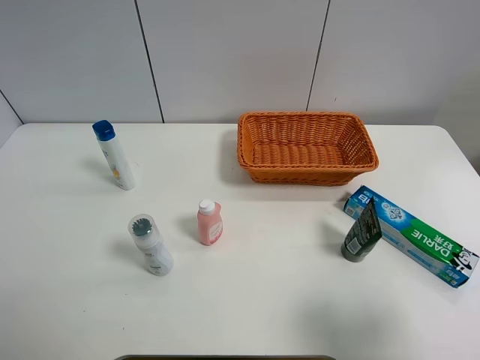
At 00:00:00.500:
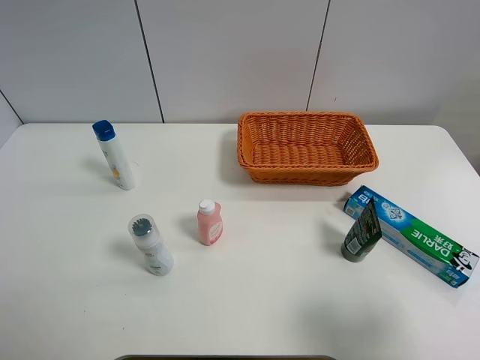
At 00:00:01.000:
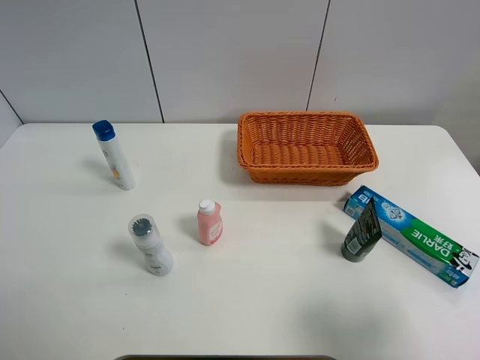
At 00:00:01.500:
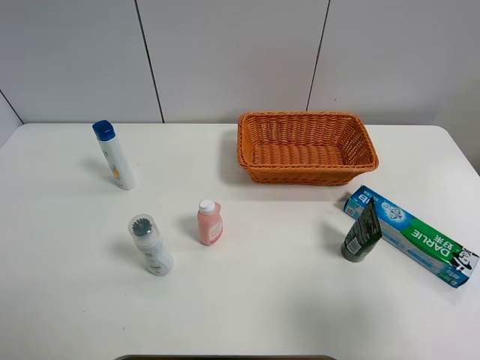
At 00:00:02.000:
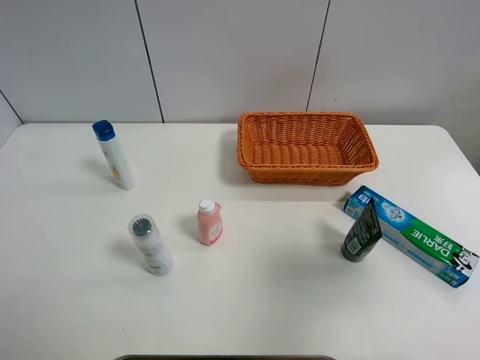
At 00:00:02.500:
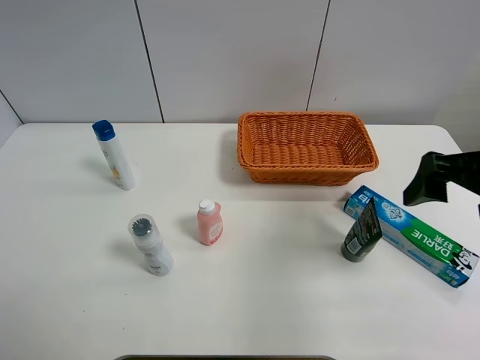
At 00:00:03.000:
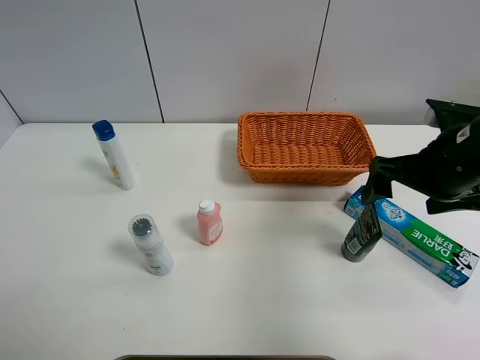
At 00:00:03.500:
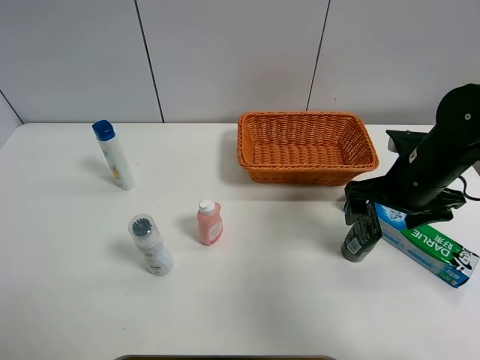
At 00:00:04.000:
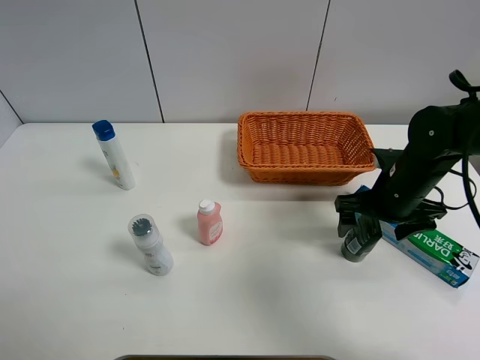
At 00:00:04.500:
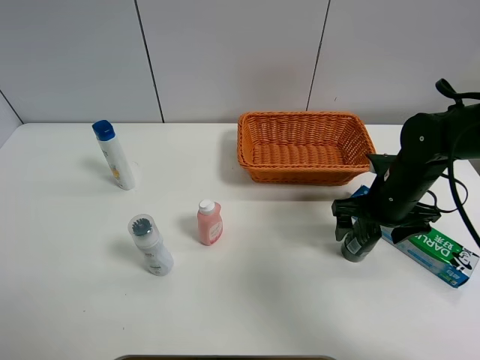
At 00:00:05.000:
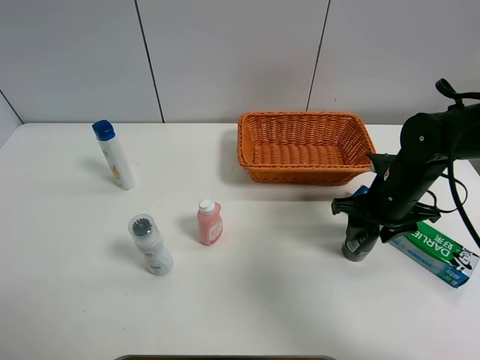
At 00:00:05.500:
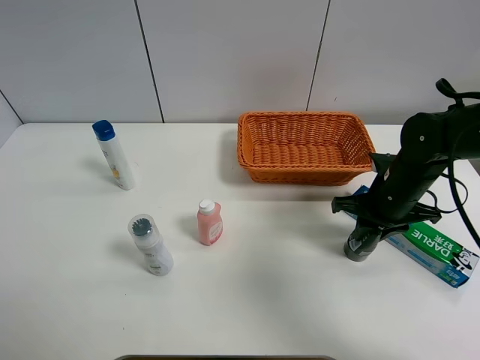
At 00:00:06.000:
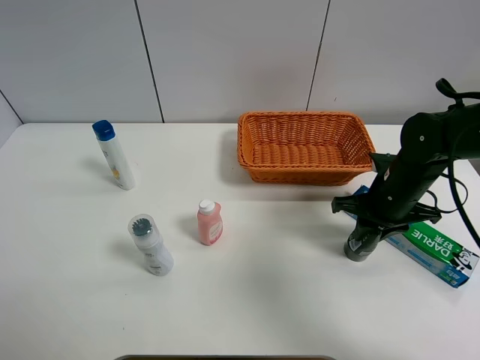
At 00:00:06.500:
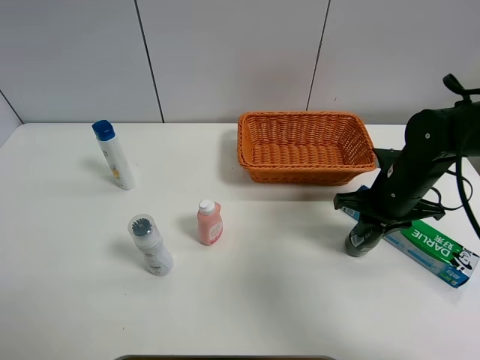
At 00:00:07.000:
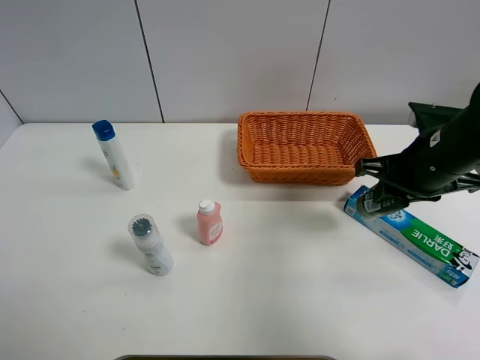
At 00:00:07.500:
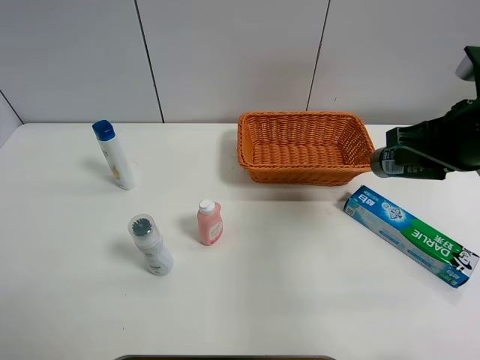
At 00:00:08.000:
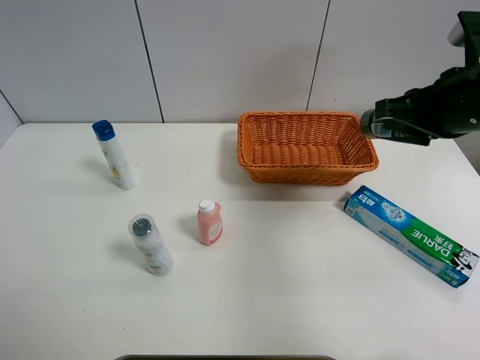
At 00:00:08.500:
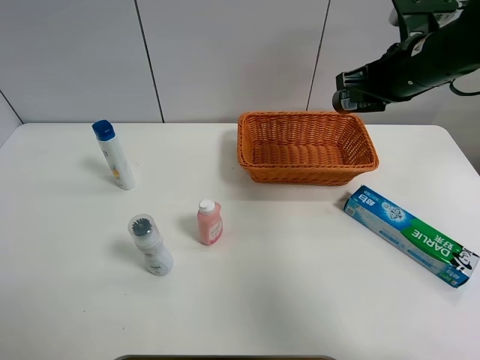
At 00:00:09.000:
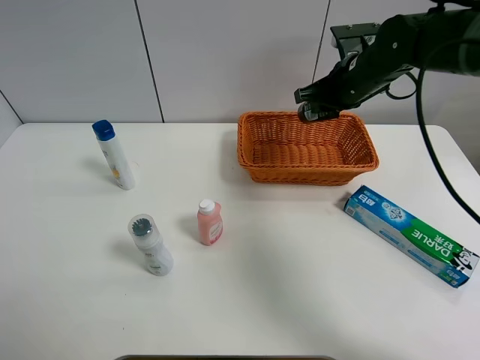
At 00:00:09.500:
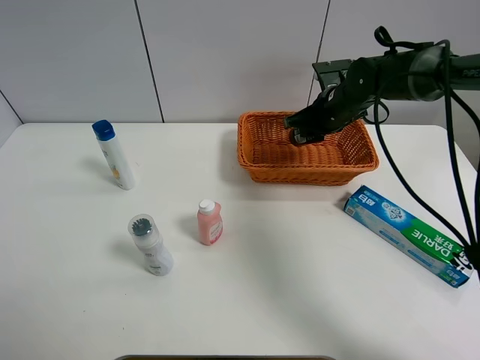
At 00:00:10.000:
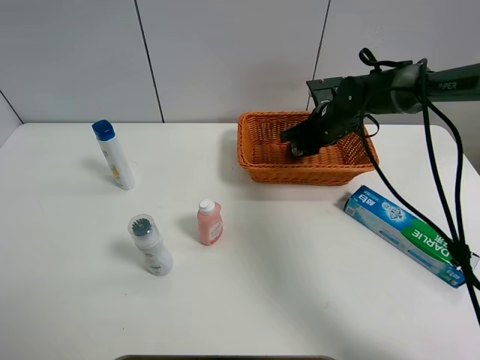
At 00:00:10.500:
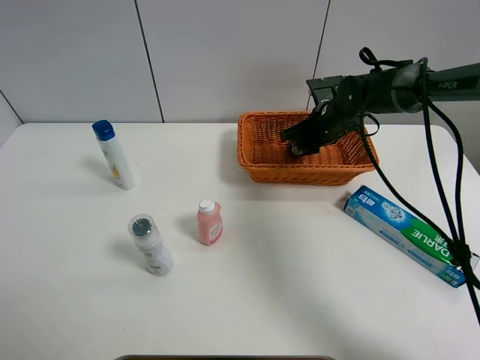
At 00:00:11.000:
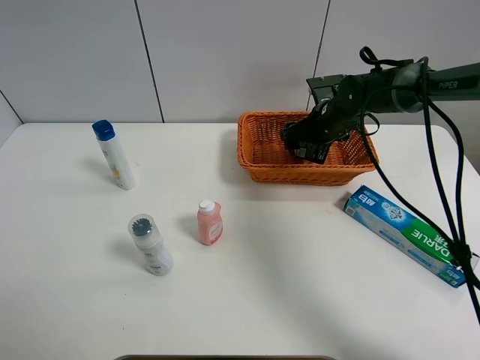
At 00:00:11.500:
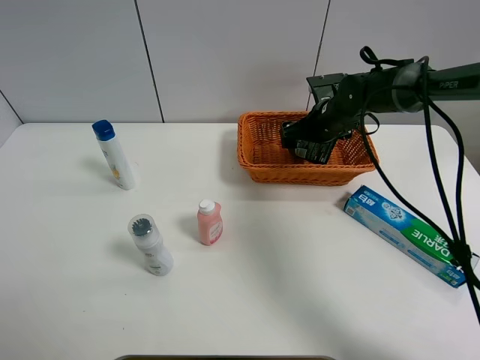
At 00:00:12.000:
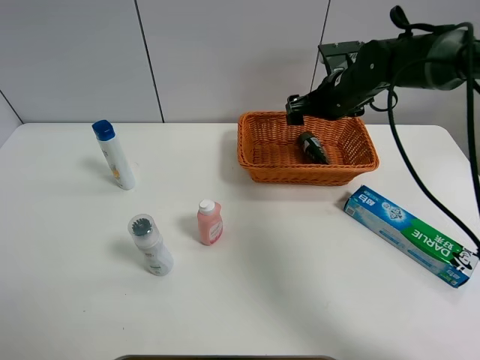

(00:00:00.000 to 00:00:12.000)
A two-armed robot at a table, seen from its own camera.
Task of the whole recording: Place the object closest to the toothpaste in the basket.
Step, 00:00:00.000 - 00:00:05.000: Grasp the soft facial cleanser with right gripper.
Step, 00:00:05.500 - 00:00:12.000: Place the soft facial cleanser in the basket with right gripper.
00:00:00.000 - 00:00:02.000: The right gripper shifts about 10 cm forward and upward.
00:00:02.000 - 00:00:04.000: The right gripper heads downward and forward, covering approximately 25 cm.
00:00:04.000 - 00:00:06.000: The right gripper closes.
00:00:06.000 - 00:00:08.000: The right gripper travels upward by some 15 cm.
00:00:08.000 - 00:00:10.000: The right gripper goes about 25 cm forward and downward.
00:00:10.000 - 00:00:12.000: The right gripper goes roughly 5 cm upward, and opens.

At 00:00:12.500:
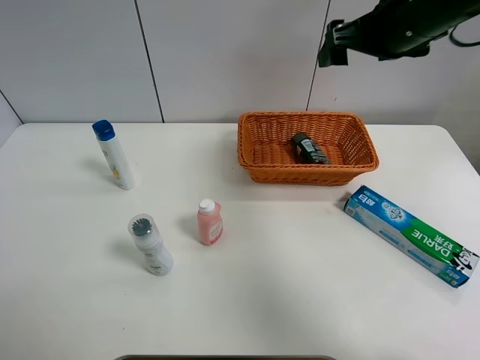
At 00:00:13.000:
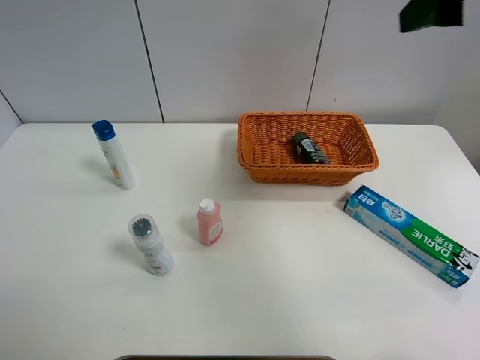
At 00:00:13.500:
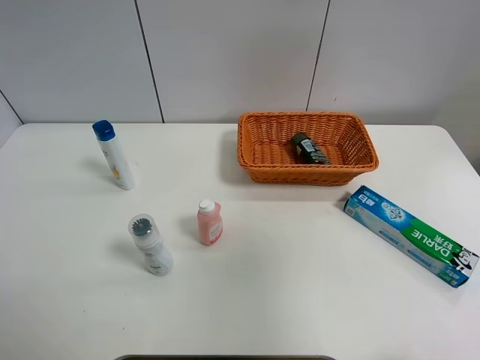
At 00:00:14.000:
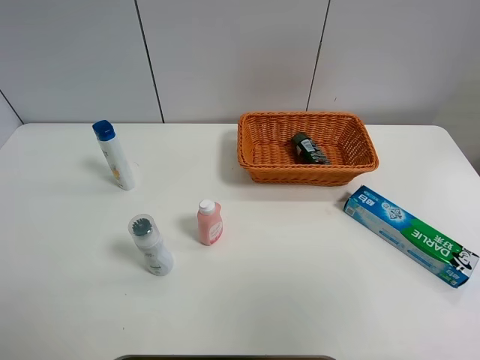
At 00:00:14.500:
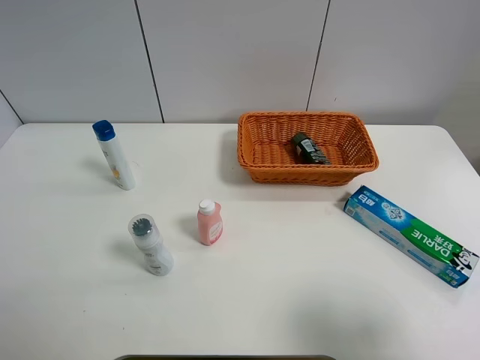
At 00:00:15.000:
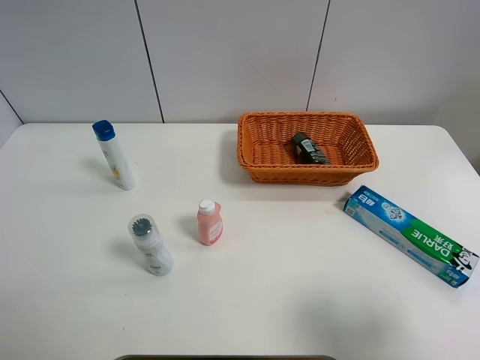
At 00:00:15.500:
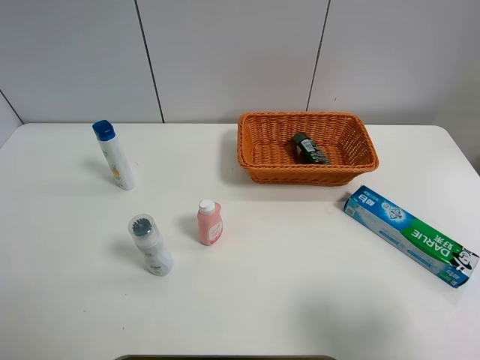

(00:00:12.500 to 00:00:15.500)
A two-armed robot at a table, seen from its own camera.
Task of the whole recording: Place the object closest to the toothpaste in the basket.
00:00:12.500 - 00:00:14.000: The right gripper heads backward, covering some 35 cm.
00:00:14.000 - 00:00:15.500: The right gripper heads downward, covering roughly 15 cm.

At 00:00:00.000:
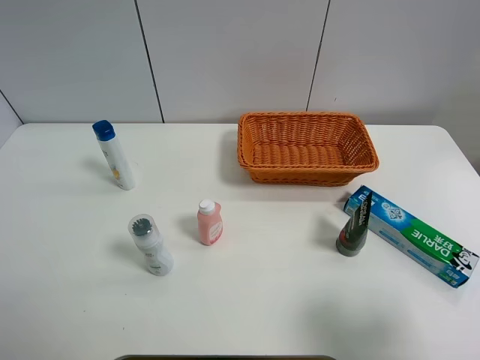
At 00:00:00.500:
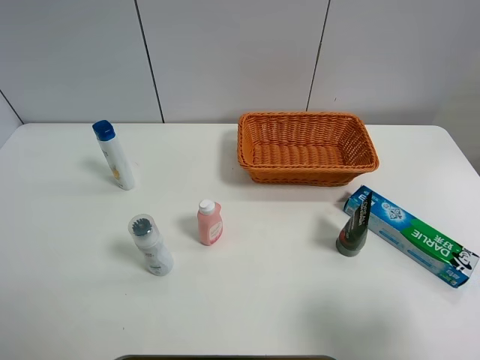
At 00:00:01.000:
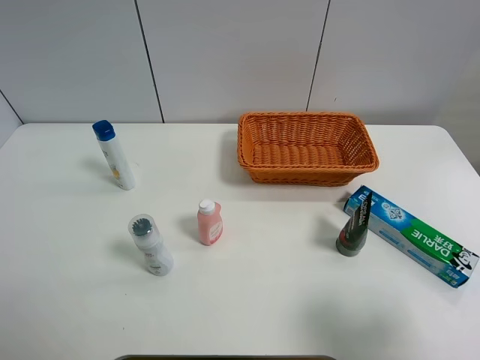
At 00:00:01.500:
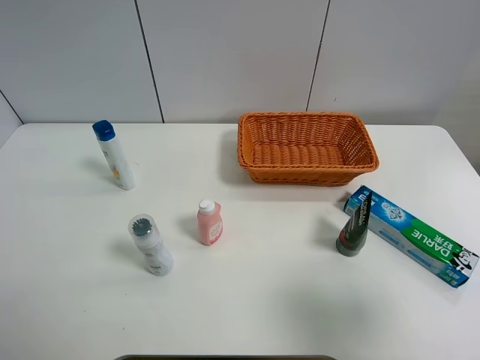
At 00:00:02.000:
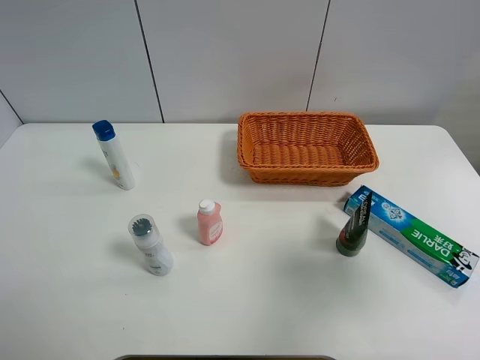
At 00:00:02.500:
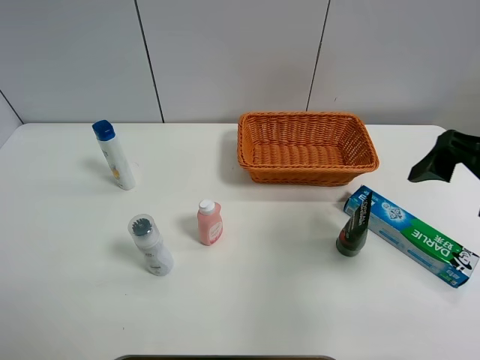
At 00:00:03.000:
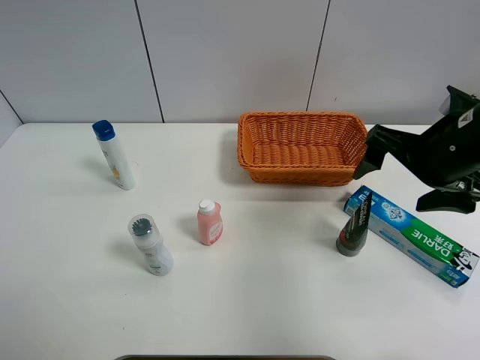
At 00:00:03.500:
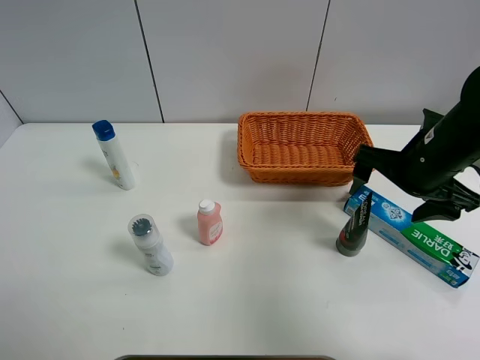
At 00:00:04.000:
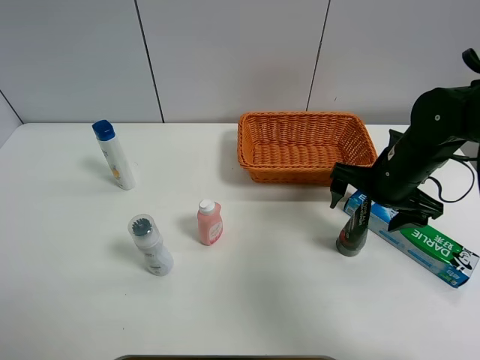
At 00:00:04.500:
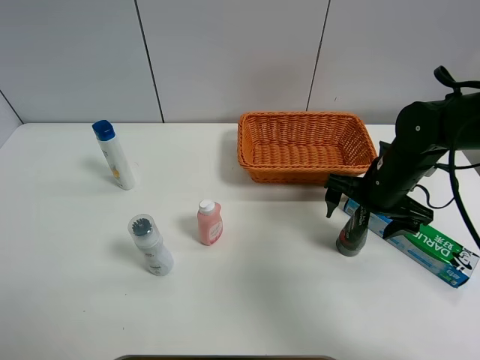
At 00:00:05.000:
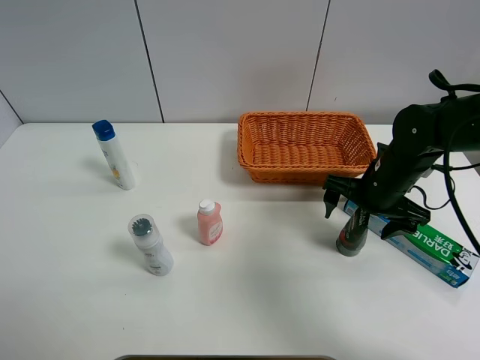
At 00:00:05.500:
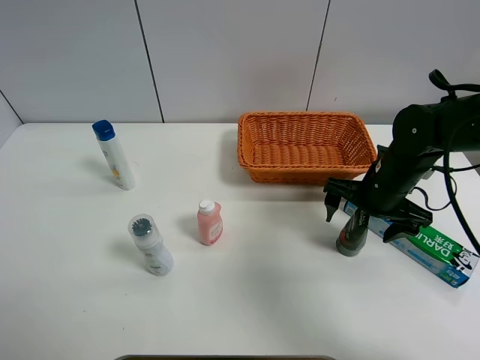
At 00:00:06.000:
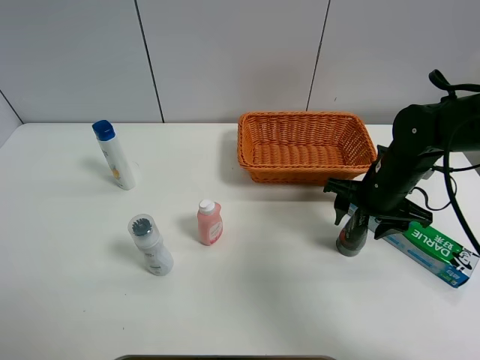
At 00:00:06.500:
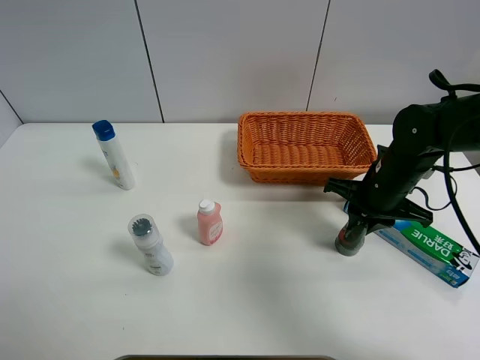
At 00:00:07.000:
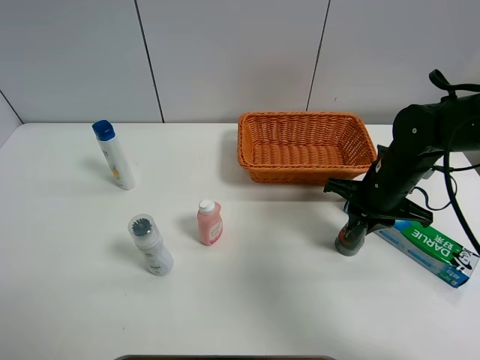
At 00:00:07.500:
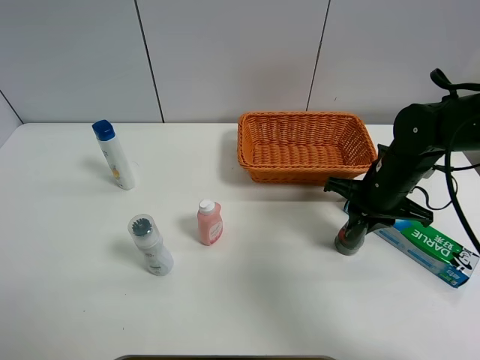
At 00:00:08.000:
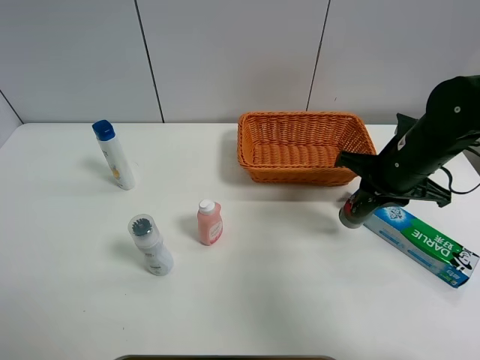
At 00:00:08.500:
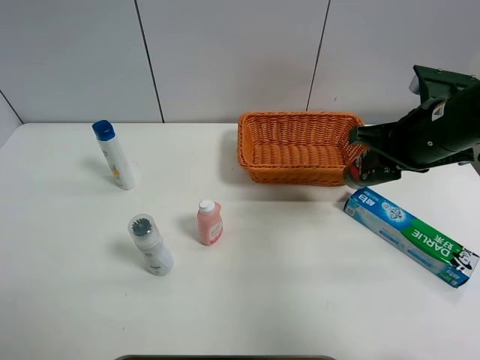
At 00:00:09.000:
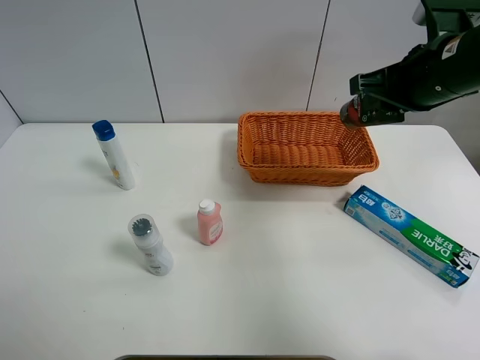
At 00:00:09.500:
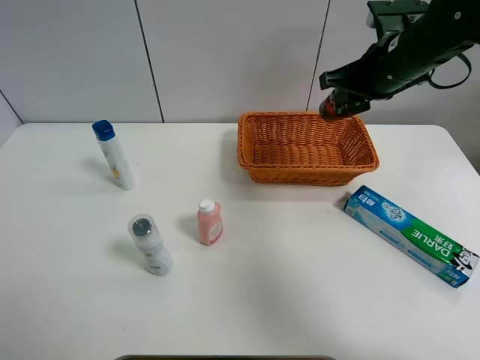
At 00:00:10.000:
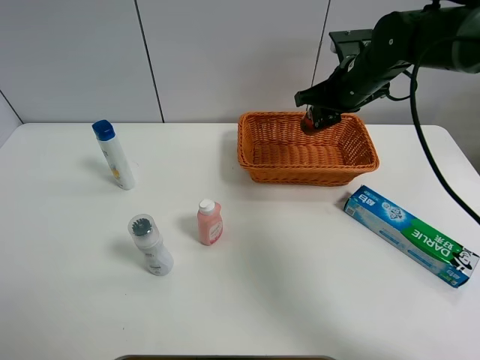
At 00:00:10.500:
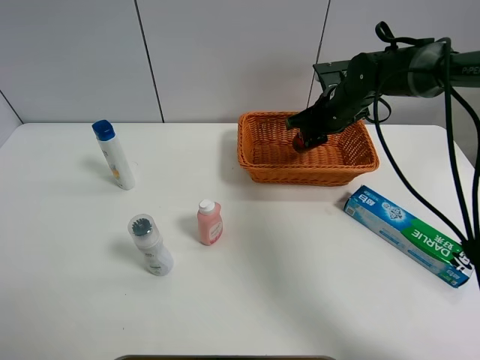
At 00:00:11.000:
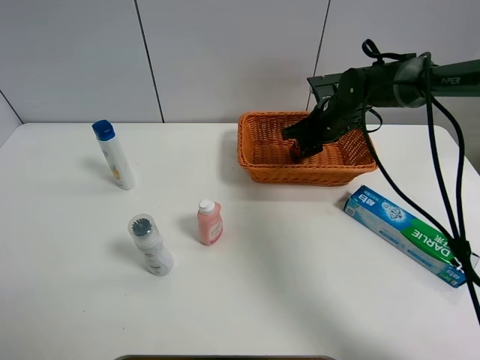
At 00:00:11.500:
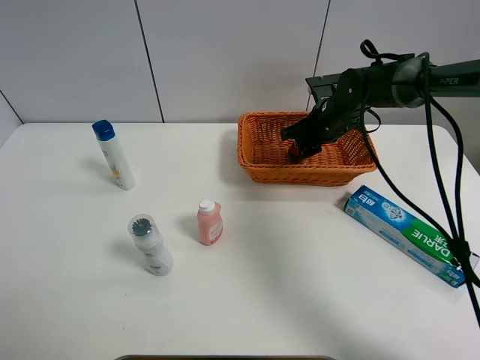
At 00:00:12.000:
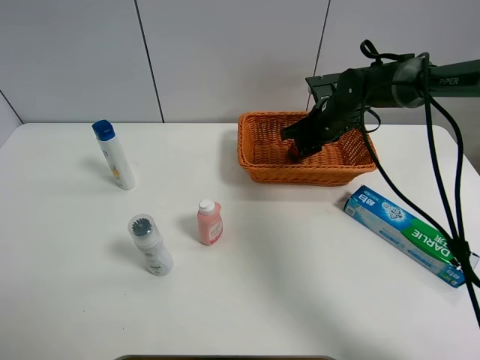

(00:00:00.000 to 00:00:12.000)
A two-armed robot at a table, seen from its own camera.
Task of the whole recording: Place the object closest to the toothpaste in the basket.
Step, 00:00:00.000 - 00:00:06.000: Grasp the soft facial cleanser with right gripper.
00:00:00.000 - 00:00:02.000: The right gripper goes roughly 10 cm forward and upward.
00:00:02.000 - 00:00:04.000: The right gripper travels forward and downward by about 25 cm.
00:00:04.000 - 00:00:06.000: The right gripper closes its fingers.
00:00:06.000 - 00:00:08.000: The right gripper heads upward, covering about 5 cm, and closes its fingers.
00:00:08.000 - 00:00:10.000: The right gripper is displaced forward by roughly 15 cm.
00:00:10.000 - 00:00:12.000: The right gripper goes roughly 10 cm downward.
